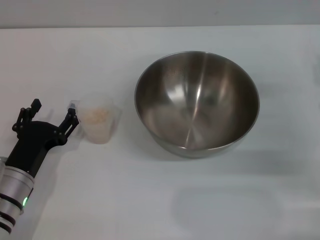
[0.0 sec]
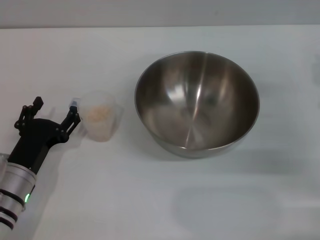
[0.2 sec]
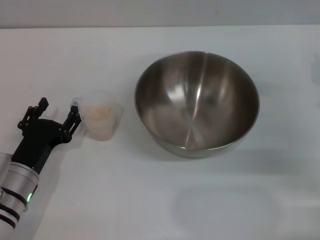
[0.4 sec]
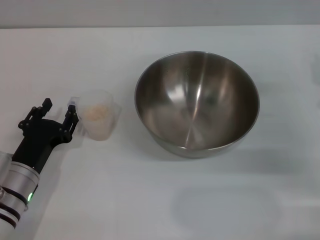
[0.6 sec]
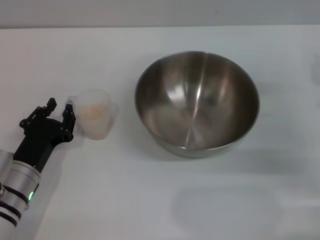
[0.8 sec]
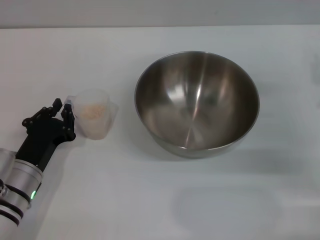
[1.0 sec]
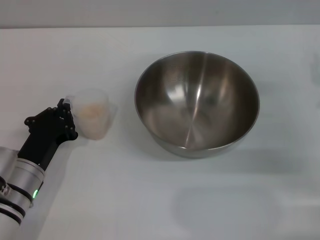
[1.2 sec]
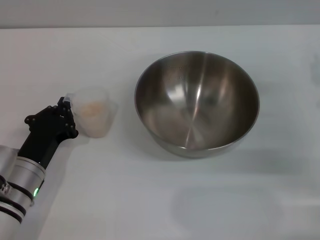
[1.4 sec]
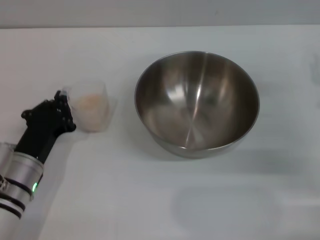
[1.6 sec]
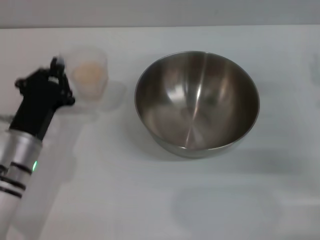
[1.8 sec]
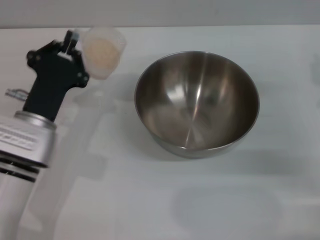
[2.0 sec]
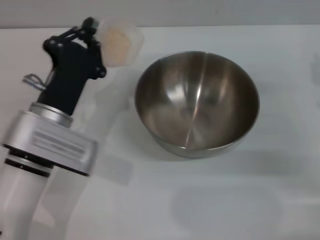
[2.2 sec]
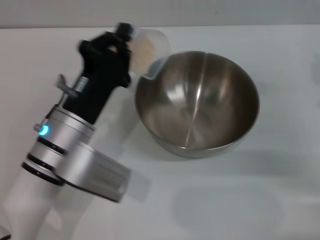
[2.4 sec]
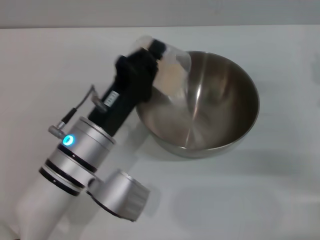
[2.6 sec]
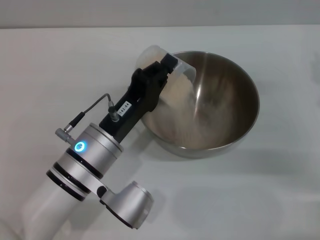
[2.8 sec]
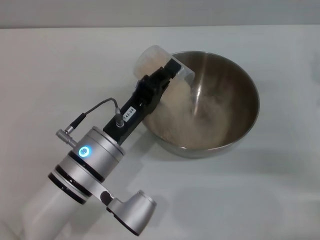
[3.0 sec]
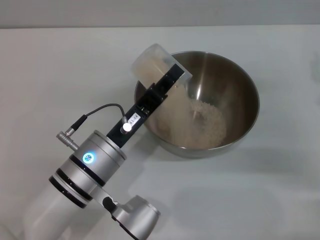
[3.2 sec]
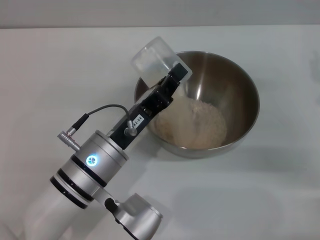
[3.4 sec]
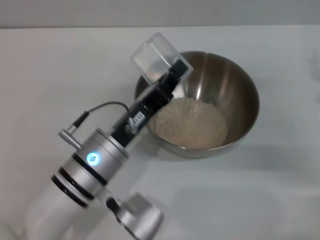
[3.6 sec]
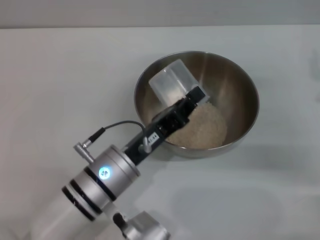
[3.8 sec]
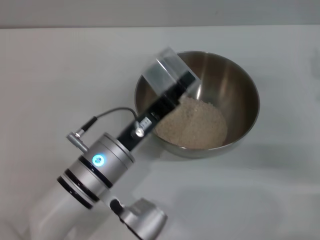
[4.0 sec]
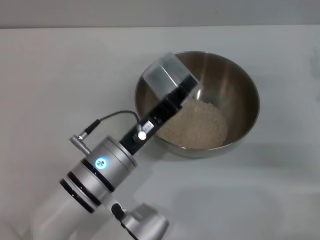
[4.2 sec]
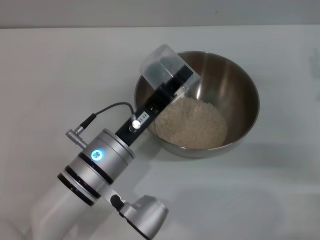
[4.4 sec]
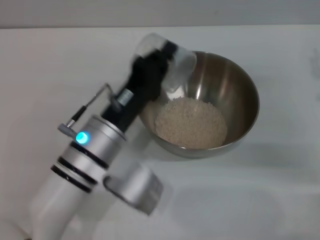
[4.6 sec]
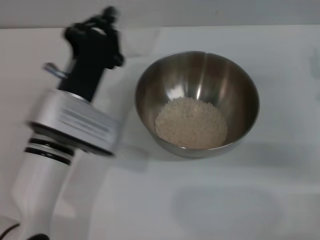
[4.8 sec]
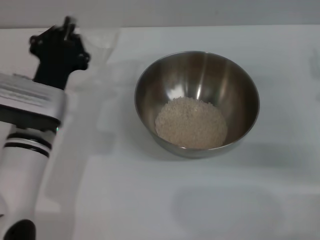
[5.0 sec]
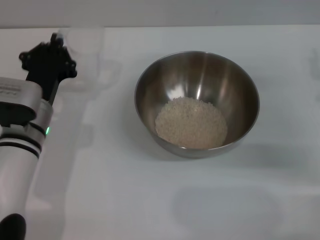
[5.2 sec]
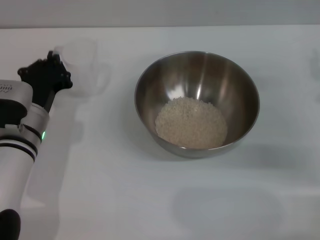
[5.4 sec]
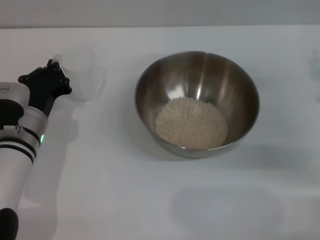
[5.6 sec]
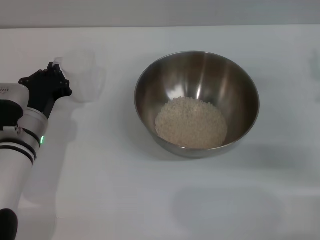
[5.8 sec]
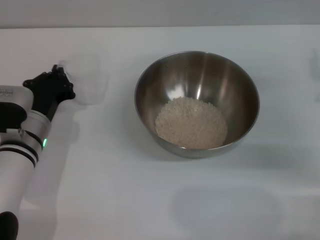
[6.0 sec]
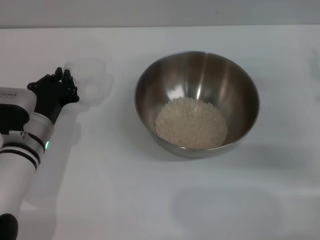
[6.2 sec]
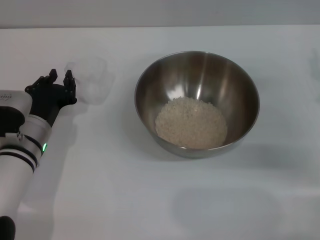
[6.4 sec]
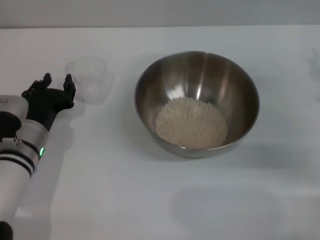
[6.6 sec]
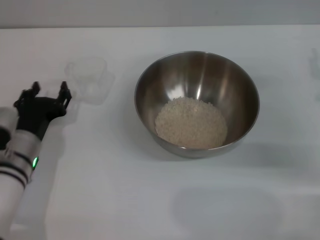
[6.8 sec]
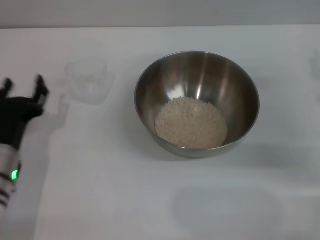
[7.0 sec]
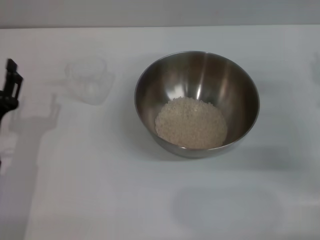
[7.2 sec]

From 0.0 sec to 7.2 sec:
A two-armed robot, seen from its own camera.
Task of the whole recording: Place the bowl in the middle of the table with one hand and pour the rice from the grain cup into it with the other hand.
Step, from 2.0 sec to 4.8 sec: Pour the rice from the cup into the bowl with the left gripper.
Step, from 5.0 sec to 6.6 sec: Place the cup on the table with the left gripper.
From 0.0 sec to 1.4 sec: The left gripper closes its fingers.
From 1.4 sec to 2.8 sec: The left gripper shifts approximately 10 cm to the right and upward.
From 4.4 sec to 5.8 sec: The left gripper travels to the left and forward by about 15 cm.
From 5.8 sec to 7.2 sec: The left gripper moves backward, about 10 cm, and opens its fingers.
